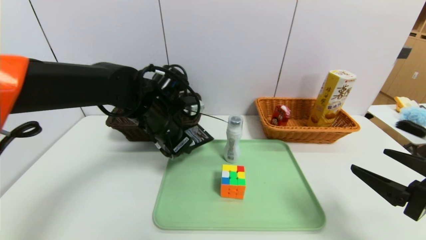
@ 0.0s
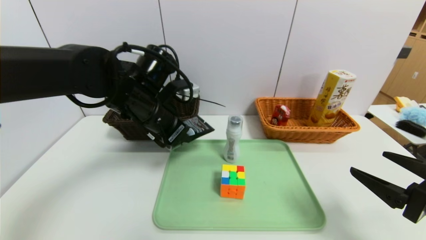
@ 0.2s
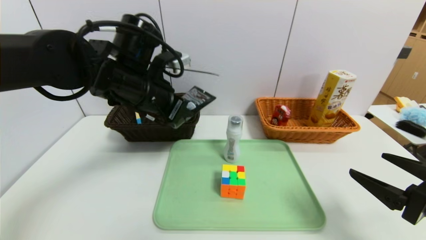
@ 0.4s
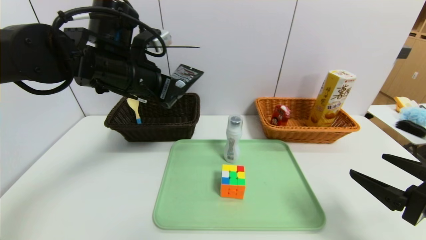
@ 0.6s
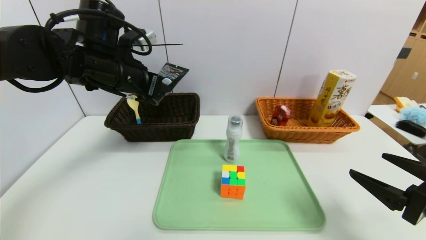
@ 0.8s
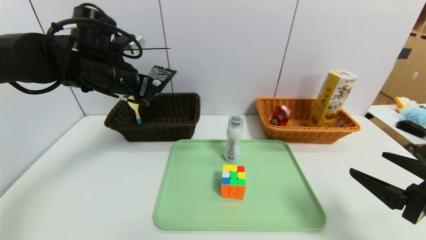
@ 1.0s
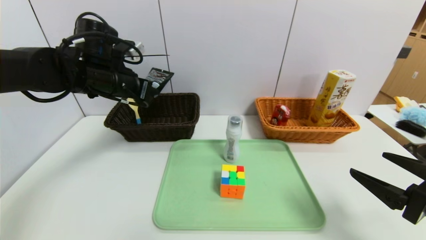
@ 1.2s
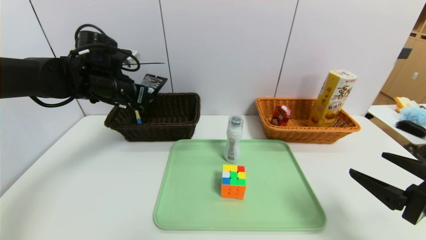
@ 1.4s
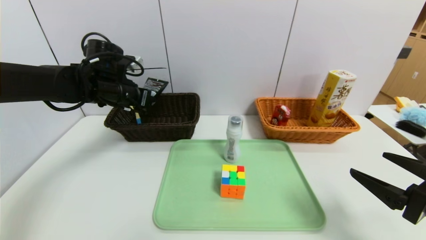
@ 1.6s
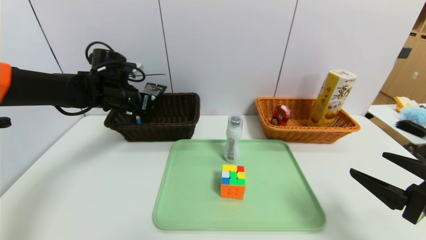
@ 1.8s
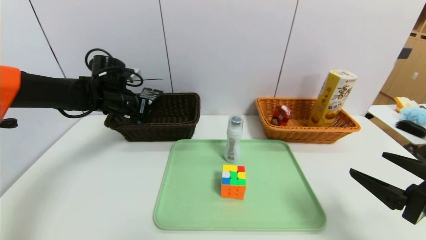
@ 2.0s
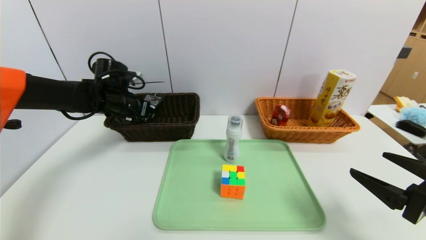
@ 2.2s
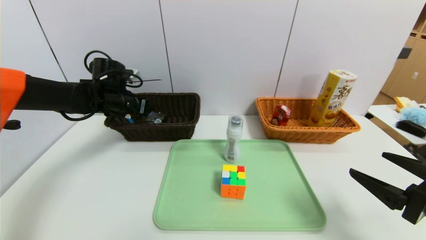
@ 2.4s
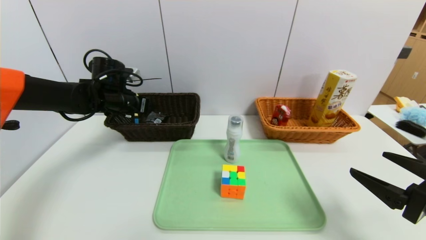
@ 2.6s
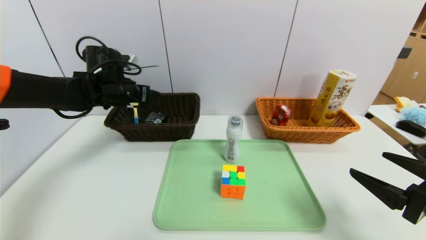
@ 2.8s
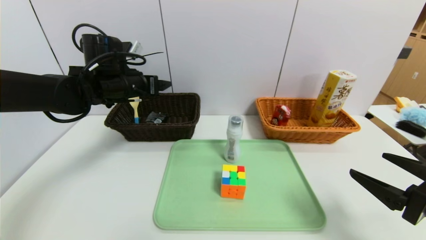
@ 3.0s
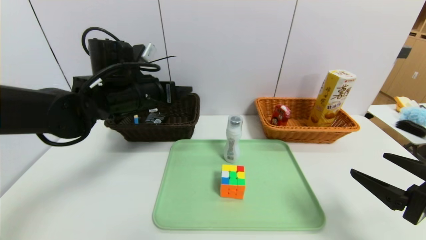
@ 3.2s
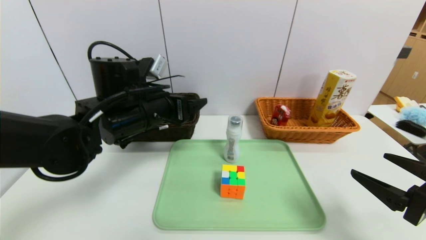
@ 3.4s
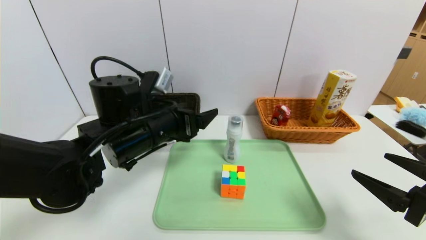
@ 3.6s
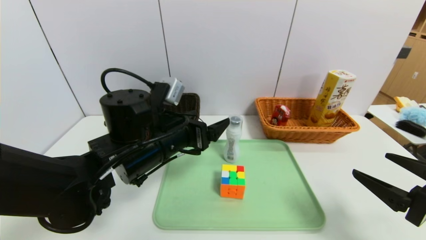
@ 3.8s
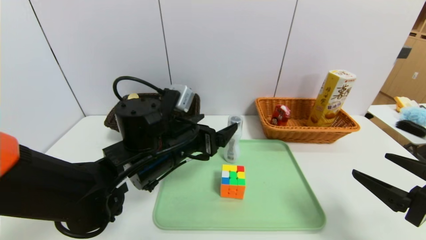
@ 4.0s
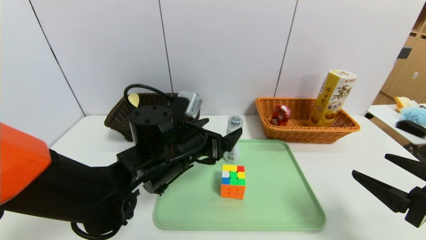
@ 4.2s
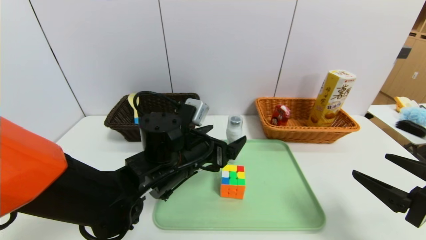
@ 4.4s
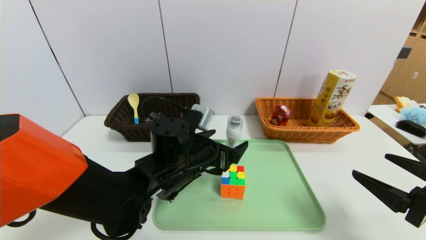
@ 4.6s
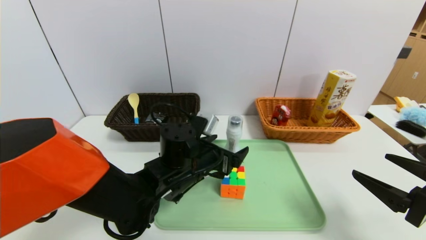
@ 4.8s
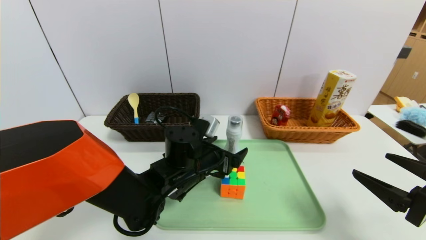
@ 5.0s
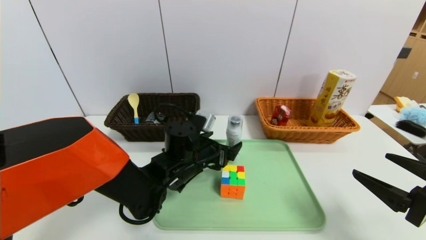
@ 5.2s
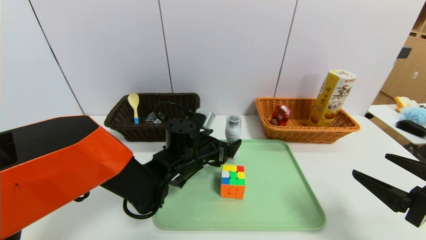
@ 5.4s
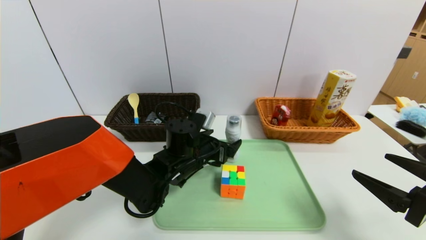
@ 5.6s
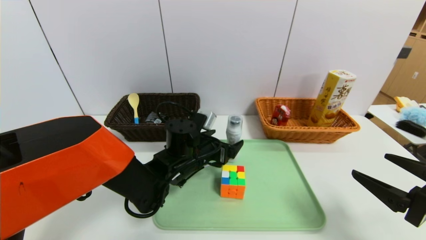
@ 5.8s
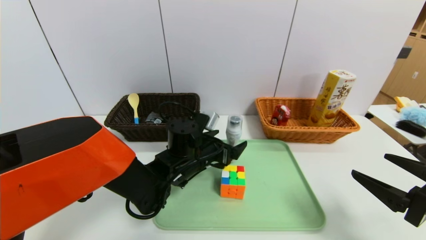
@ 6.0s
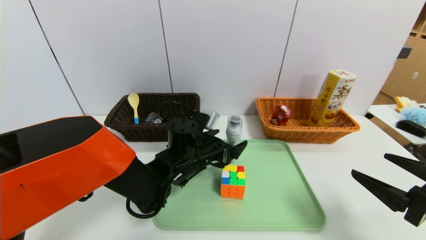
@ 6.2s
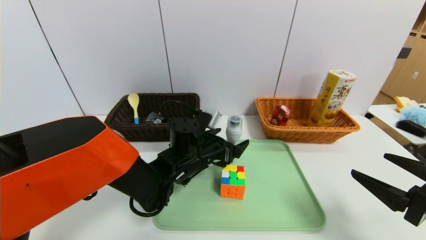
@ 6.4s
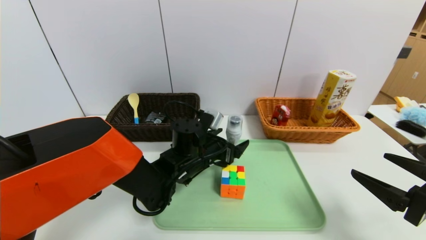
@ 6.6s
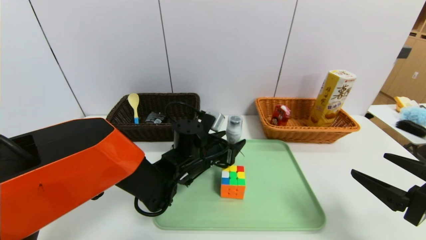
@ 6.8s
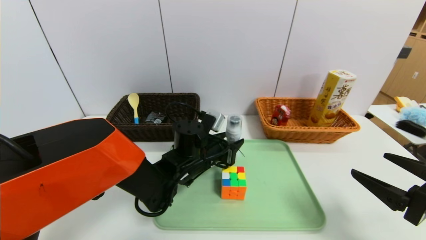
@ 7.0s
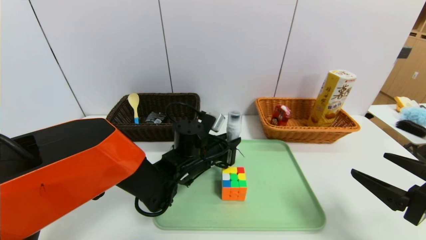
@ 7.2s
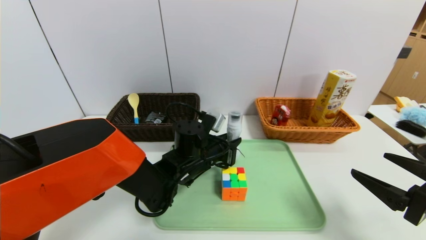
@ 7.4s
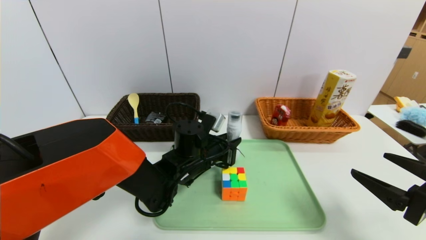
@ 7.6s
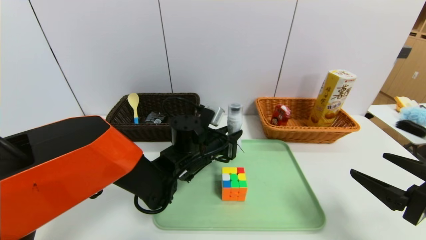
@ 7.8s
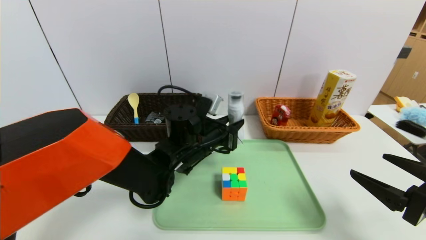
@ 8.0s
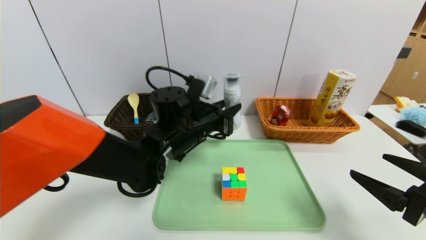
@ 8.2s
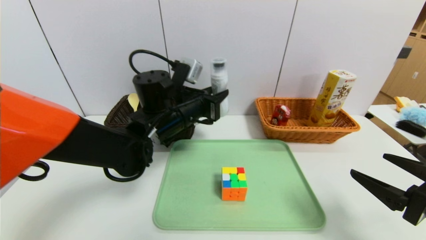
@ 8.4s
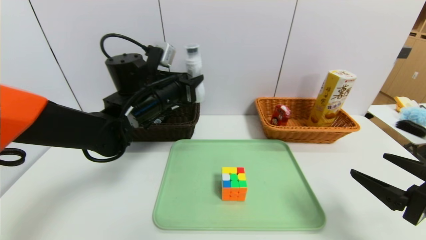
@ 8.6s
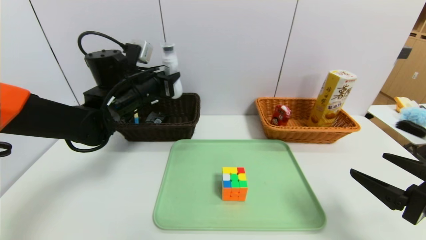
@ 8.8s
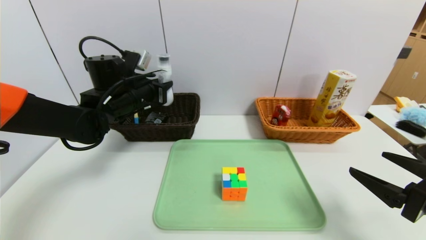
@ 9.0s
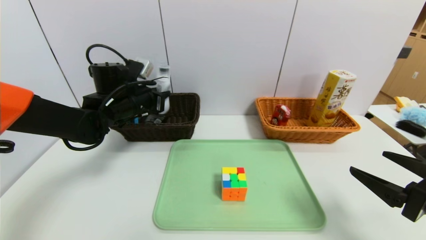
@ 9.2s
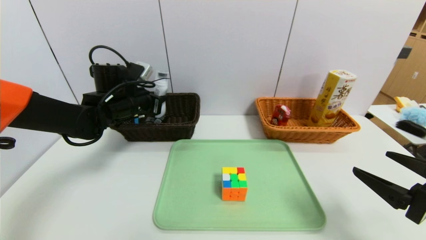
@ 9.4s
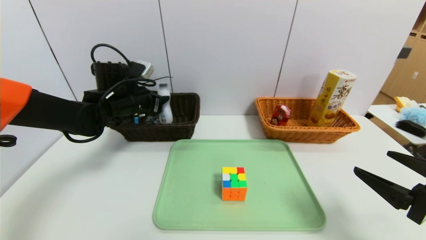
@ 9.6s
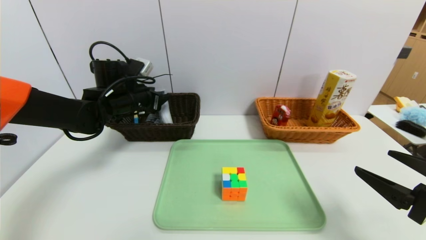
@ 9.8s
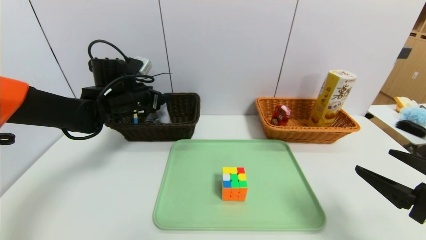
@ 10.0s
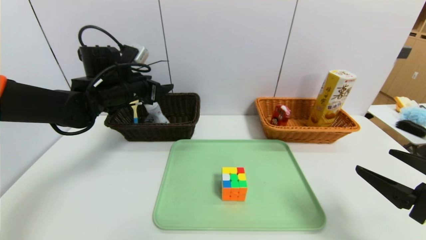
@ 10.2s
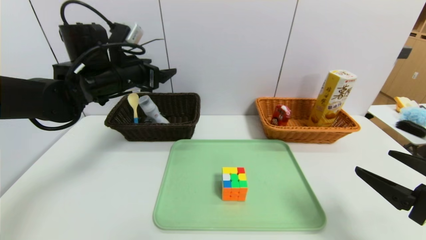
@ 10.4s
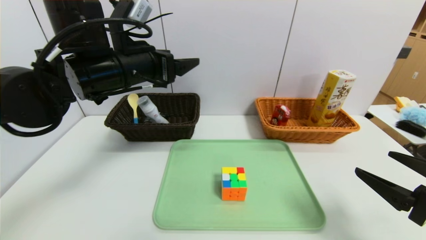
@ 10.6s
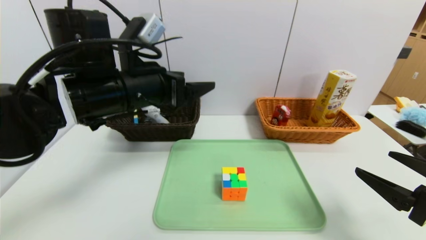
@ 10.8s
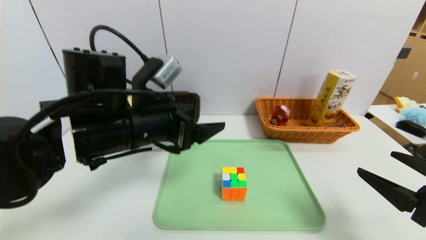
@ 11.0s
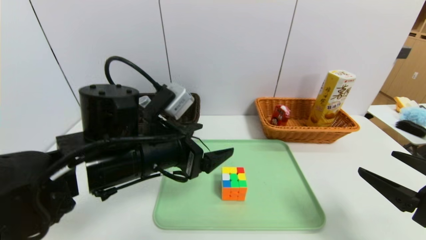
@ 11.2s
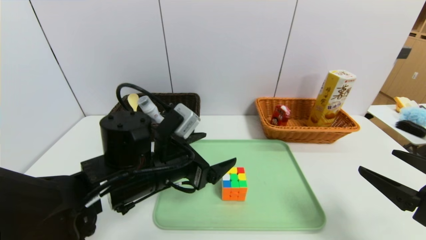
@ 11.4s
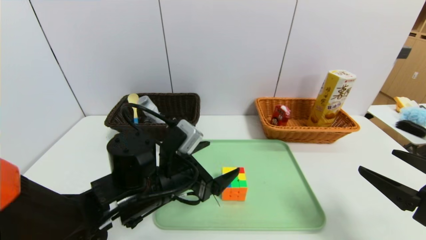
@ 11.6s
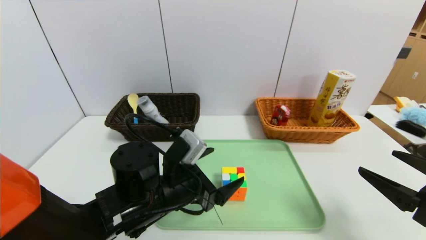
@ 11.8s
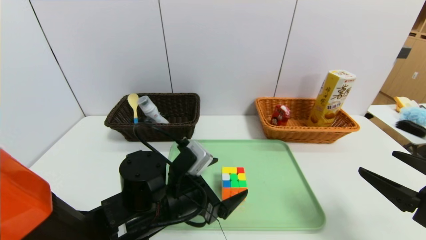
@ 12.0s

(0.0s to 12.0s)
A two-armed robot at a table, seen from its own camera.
Task of the whole recording: place the food in the right basket with the right gripper, and place the non food items in the left basket with the left gripper.
Step, 0.0s - 3.0s: Grasp the soft cleanser and put it in the left basket.
Step, 3.2s - 11.0s: Grasp the washing liquid and put it in the left basket.
0.0s - 1.6s: The left gripper shifts some 15 cm to the left and forward.
1.6s - 3.0s: The left gripper opens up.
3.0s - 4.4s: The left gripper shifts roughly 20 cm to the right, backward and downward.
4.4s - 6.0s: The left gripper is displaced forward by approximately 5 cm.
6.0s - 7.6s: The left gripper closes.
7.6s - 9.0s: The left gripper is displaced to the left and upward by approximately 20 cm.
9.0s - 10.4s: The left gripper heads upward, covering some 5 cm, and opens its fingers.
10.4s - 12.0s: The left gripper moves downward, backward and to the right, some 25 cm.

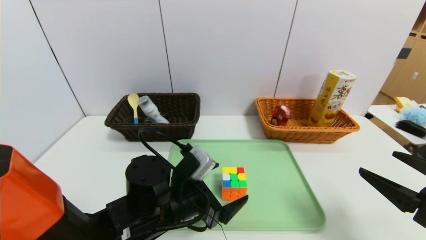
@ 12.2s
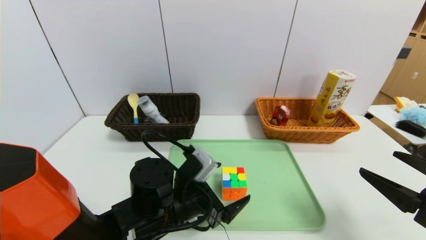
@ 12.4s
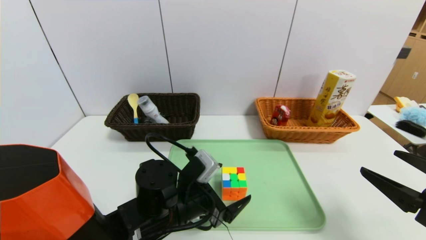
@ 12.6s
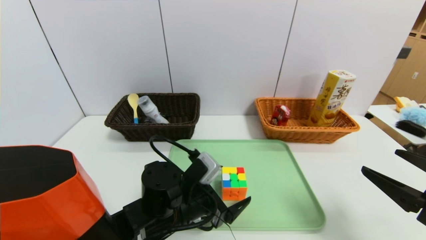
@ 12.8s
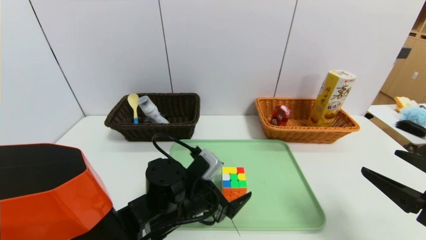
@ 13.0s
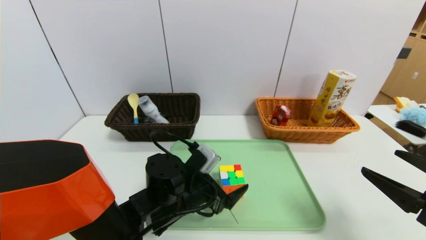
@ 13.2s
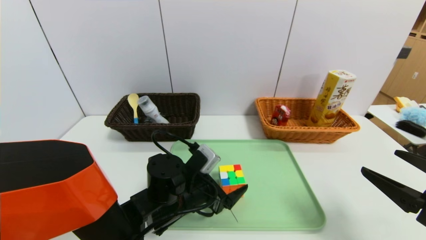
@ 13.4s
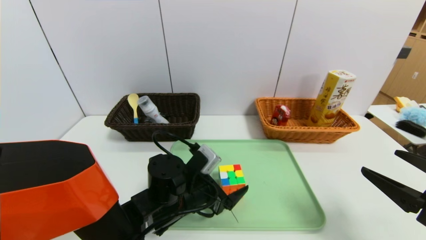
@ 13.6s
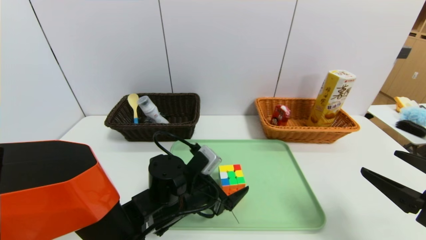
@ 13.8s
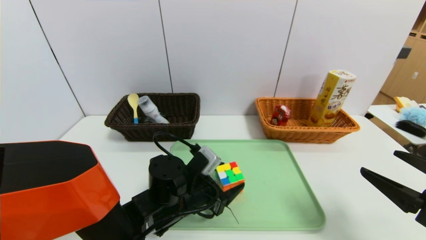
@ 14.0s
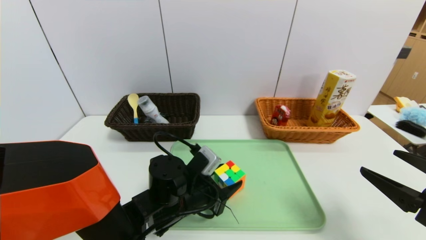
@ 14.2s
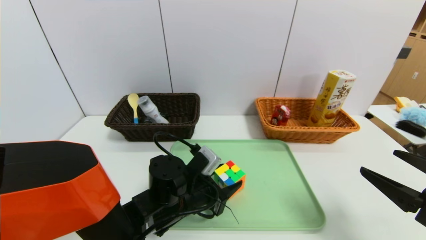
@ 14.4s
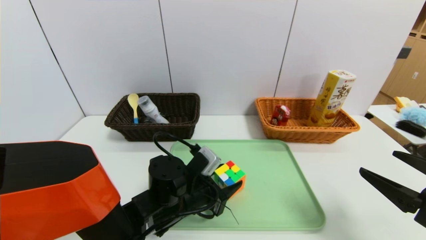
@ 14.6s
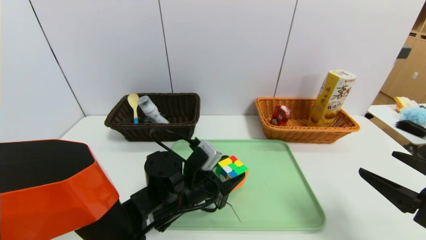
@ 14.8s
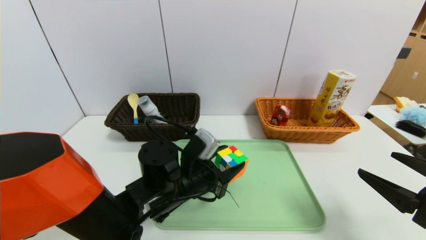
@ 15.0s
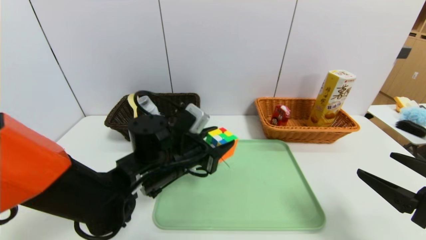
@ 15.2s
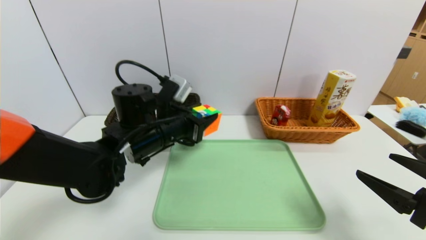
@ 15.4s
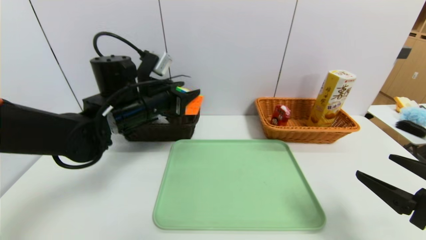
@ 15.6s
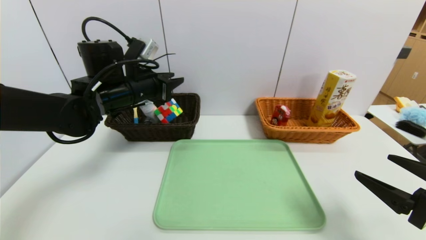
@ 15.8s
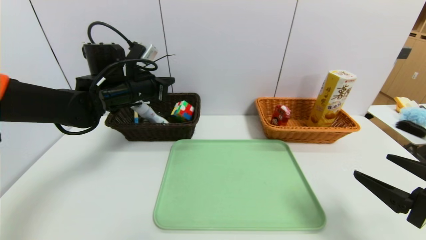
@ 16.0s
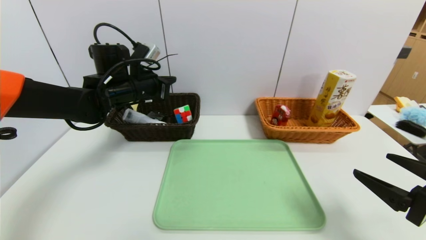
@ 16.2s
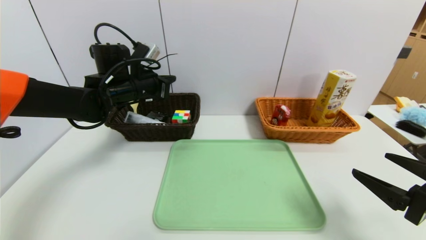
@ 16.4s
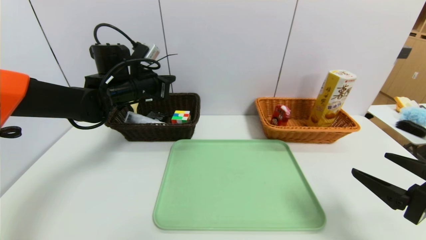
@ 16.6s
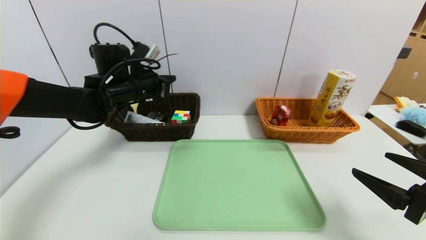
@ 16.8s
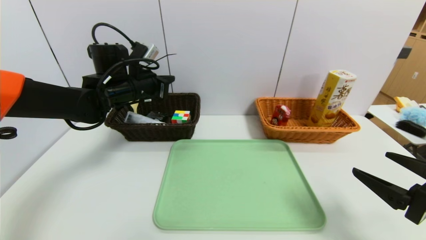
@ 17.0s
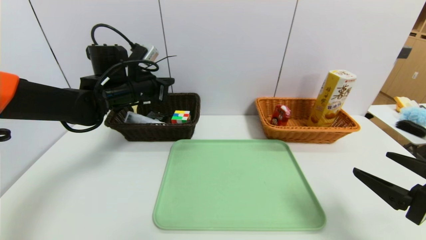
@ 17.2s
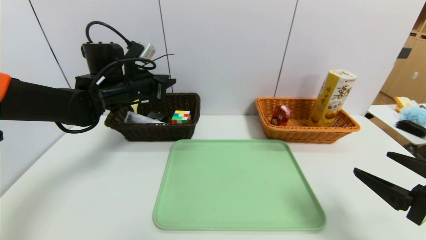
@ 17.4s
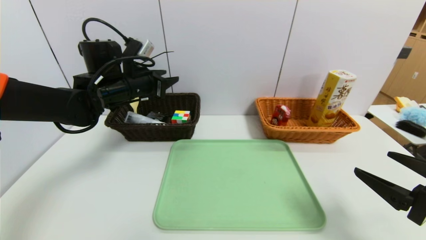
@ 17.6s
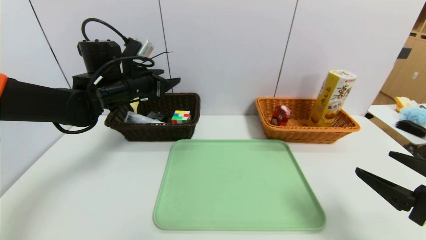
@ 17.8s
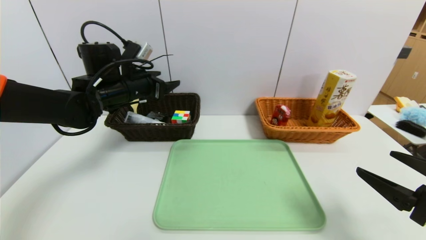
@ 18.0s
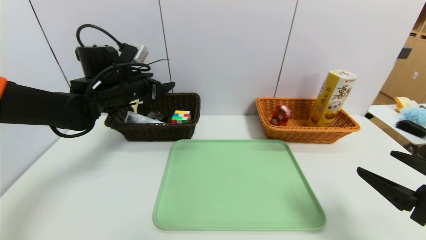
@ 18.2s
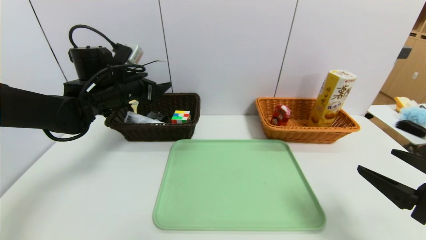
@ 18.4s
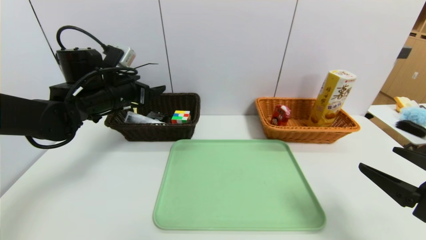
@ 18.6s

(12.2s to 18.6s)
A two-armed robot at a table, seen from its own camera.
Task of the whole recording: place the food in the right basket with the right gripper, and place the non food items in the left basket with the left gripper.
Step, 12.2s - 18.0s: Grasp the rubiks cube and put it in the left basket.
12.2s - 13.8s: The grippers stay close to where they were, moving slightly.
13.8s - 15.4s: The left gripper is displaced upward, forward and to the left by roughly 15 cm, and closes its fingers.
15.4s - 17.0s: The left gripper moves forward and to the left, roughly 10 cm, and closes.
17.0s - 18.6s: The left gripper ends up about 5 cm from where it was, and opens its fingers.
